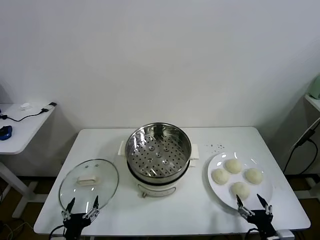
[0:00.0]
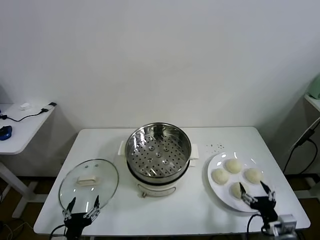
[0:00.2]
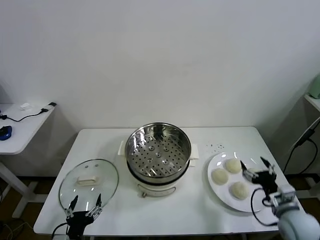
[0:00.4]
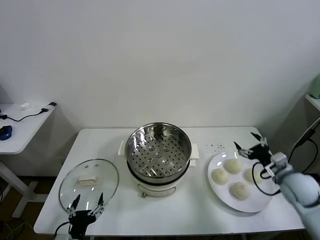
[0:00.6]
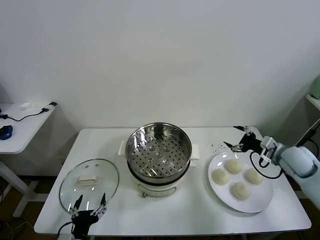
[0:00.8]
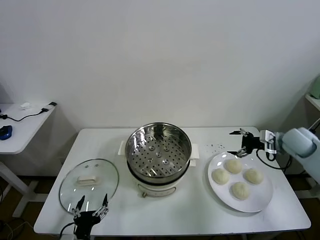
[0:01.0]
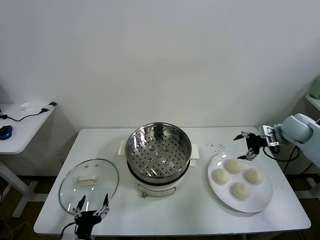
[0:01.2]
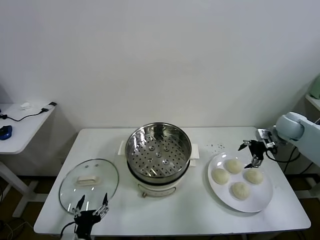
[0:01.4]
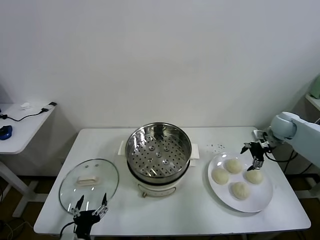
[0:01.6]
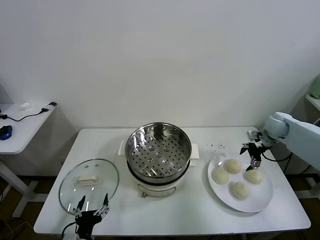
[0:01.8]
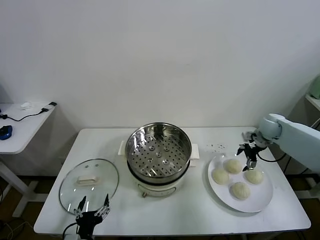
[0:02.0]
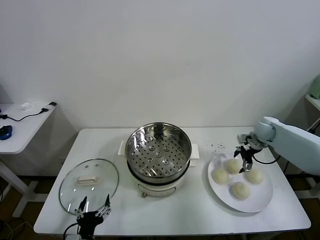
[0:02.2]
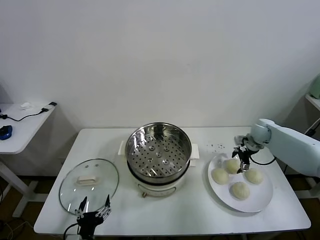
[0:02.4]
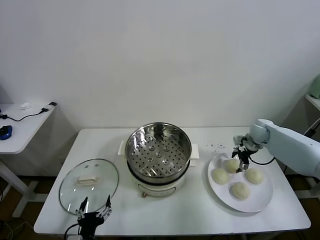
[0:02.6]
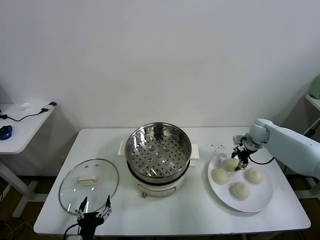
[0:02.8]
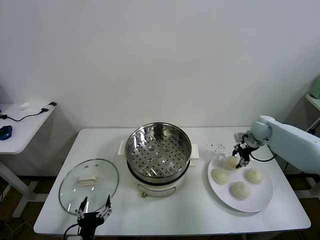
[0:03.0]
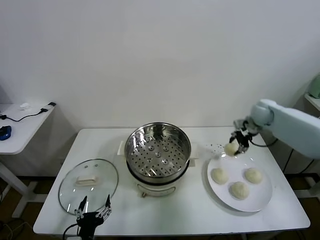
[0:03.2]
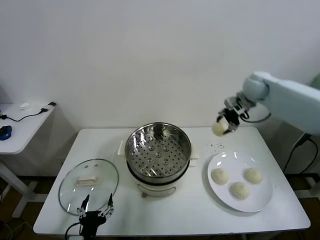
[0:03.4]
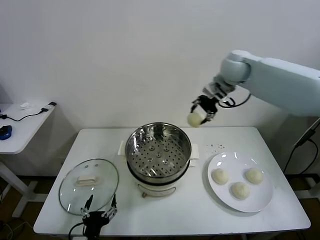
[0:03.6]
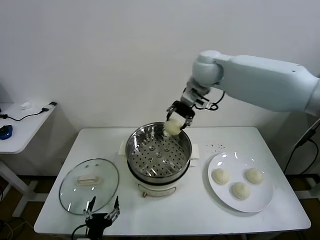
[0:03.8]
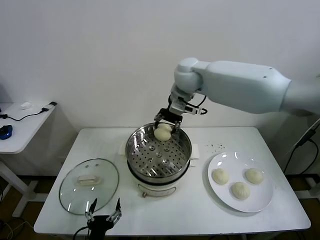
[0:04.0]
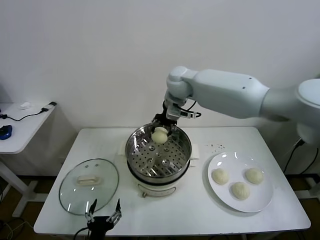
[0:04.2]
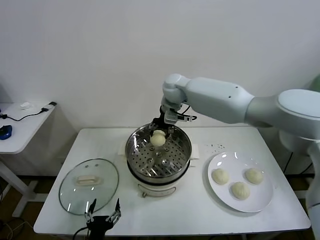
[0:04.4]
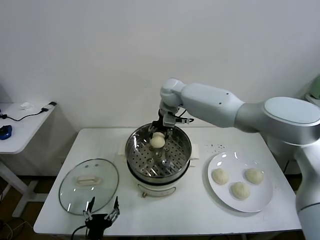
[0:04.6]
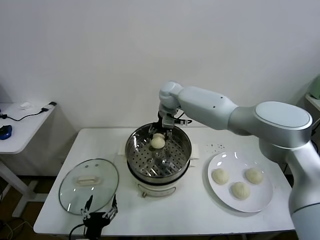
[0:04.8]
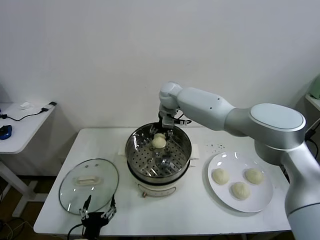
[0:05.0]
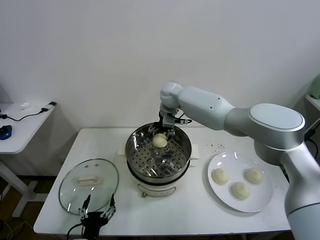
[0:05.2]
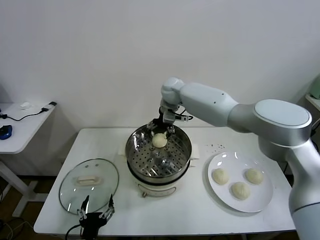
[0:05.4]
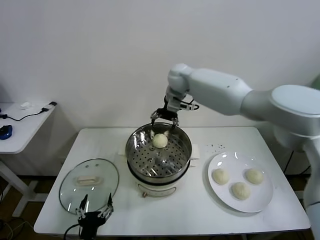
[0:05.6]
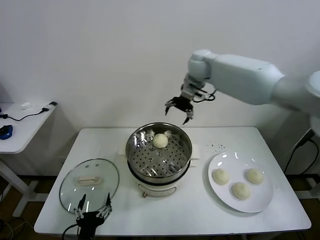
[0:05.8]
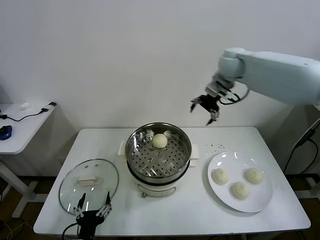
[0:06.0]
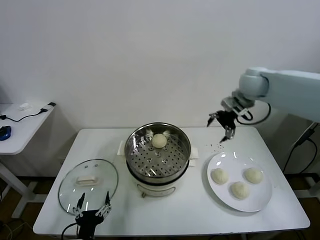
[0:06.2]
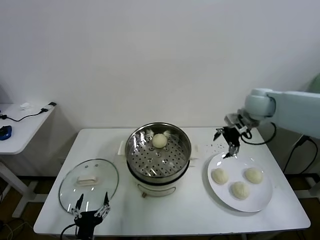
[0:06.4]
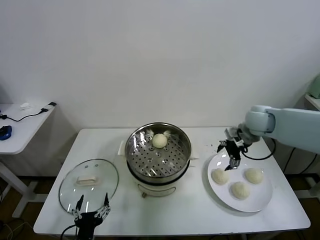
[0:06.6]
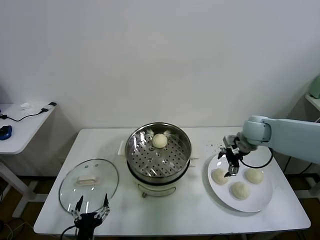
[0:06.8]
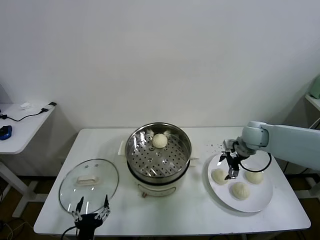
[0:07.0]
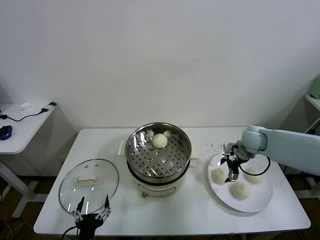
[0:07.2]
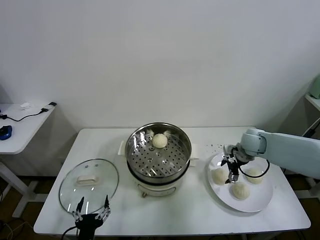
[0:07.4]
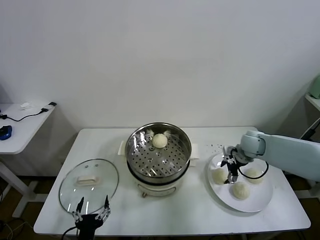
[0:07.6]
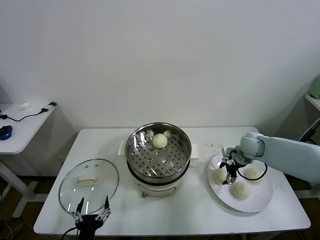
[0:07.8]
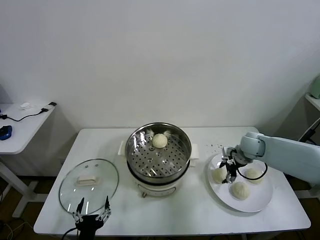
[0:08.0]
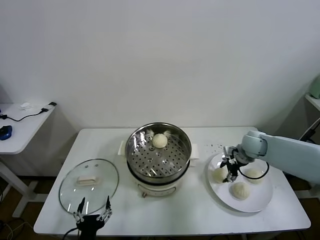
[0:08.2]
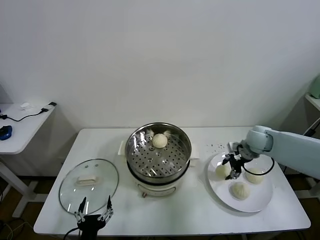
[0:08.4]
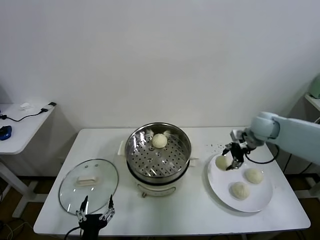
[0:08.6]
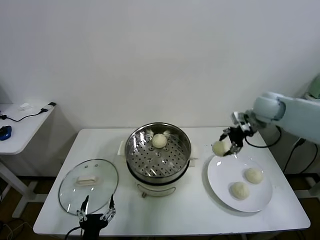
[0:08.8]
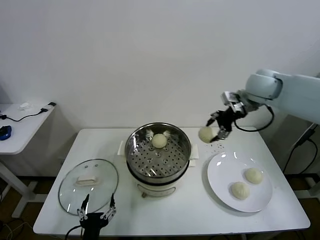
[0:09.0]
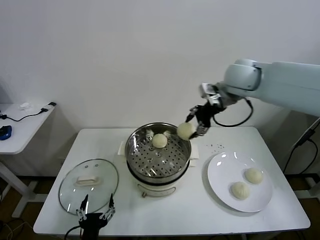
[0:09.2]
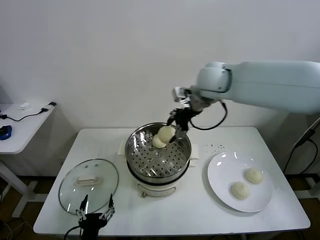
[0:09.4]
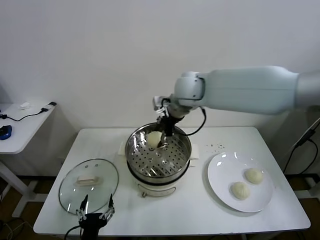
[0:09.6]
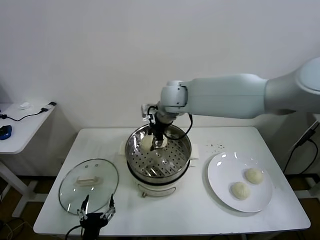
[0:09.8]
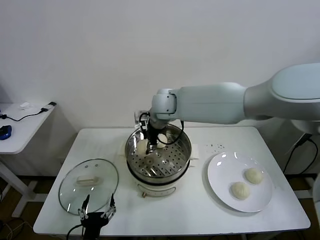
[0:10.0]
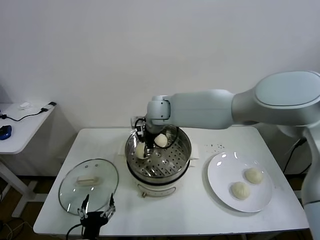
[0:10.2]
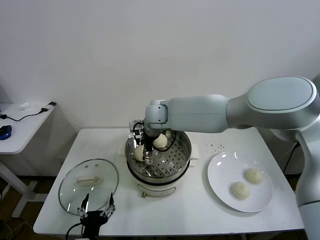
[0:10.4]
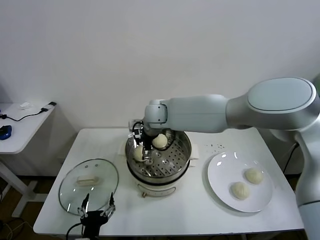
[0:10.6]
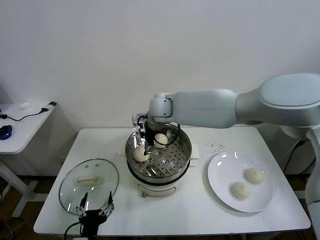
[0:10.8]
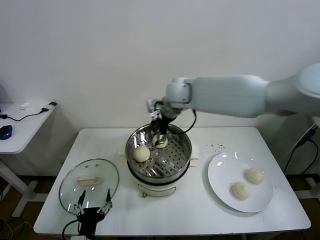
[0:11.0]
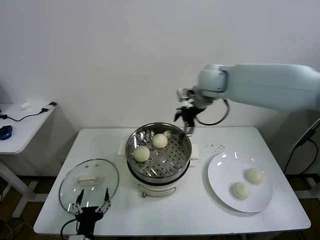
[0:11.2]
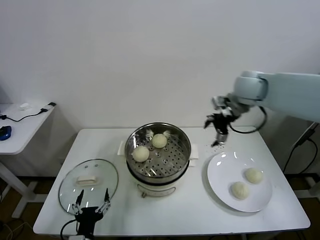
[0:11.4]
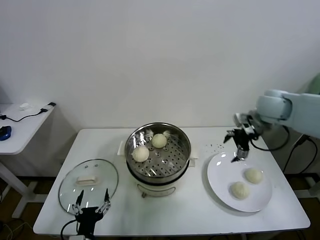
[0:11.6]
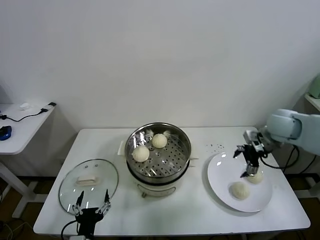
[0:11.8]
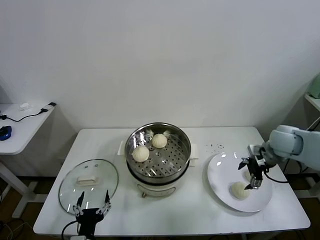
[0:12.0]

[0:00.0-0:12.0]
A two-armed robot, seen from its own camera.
Task of the whole recording: take steamed baozi put them in steamer.
Step, 0.0 to 2.6 s: Grasp the baozi in the plate with right gripper.
Step, 2.8 to 5.2 s: Place the baozi on the steamer with right gripper.
Step, 5.6 to 7.8 s: Grasp the baozi in the plate with right gripper.
Step, 8.0 to 10.6 s: Place the baozi on the steamer with right gripper.
1.6 to 3.0 s: The right gripper ends up roughly 5 cm from where it was, and closes.
3.0 to 4.4 s: The right gripper shifts some 35 cm to the left.
4.4 to 6.0 s: The right gripper goes roughly 20 cm to the right, and opens up.
6.0 to 7.6 s: The right gripper shifts some 25 cm downward.
7.6 to 9.0 s: The right gripper travels upward by about 25 cm, and closes.
9.0 to 10.4 s: The right gripper goes some 30 cm to the left and downward.
10.4 to 12.0 s: The right gripper moves to the right, about 40 cm, and opens up.

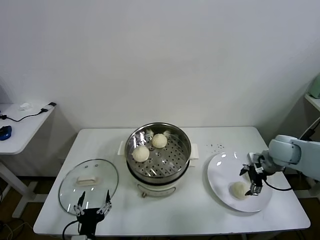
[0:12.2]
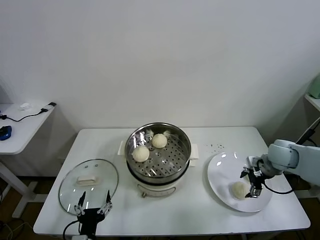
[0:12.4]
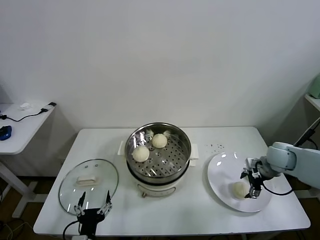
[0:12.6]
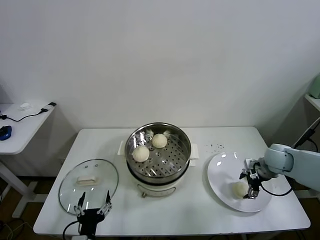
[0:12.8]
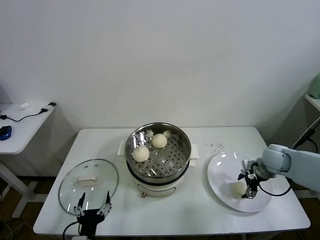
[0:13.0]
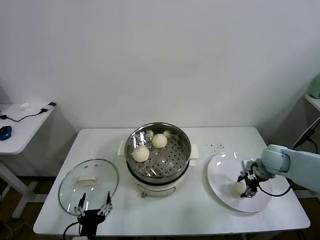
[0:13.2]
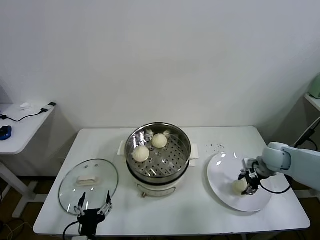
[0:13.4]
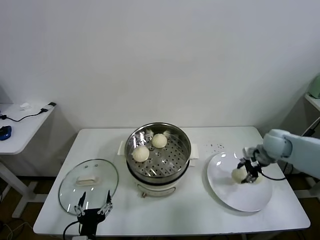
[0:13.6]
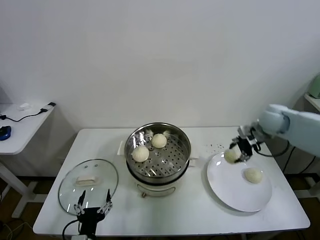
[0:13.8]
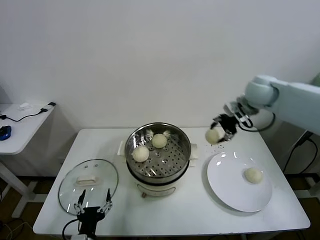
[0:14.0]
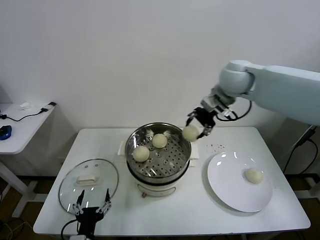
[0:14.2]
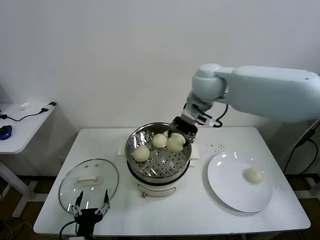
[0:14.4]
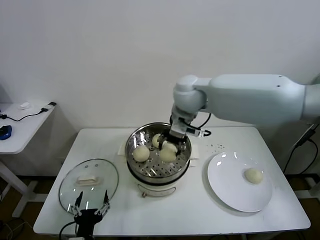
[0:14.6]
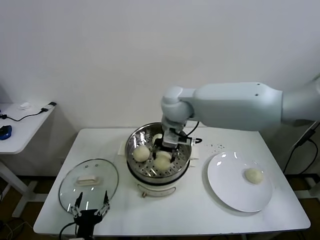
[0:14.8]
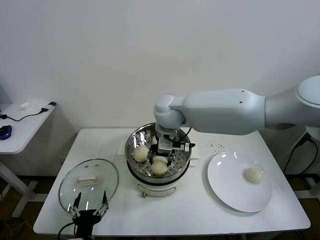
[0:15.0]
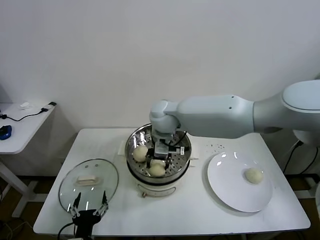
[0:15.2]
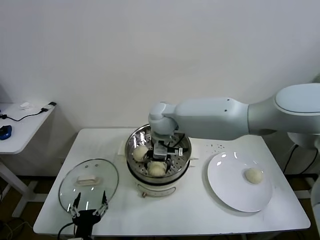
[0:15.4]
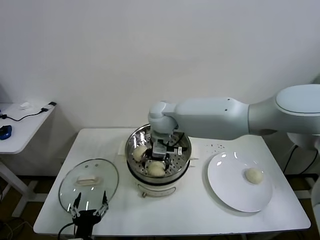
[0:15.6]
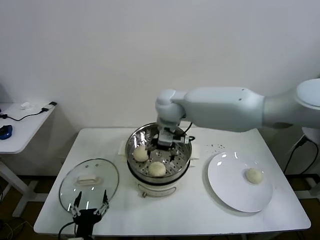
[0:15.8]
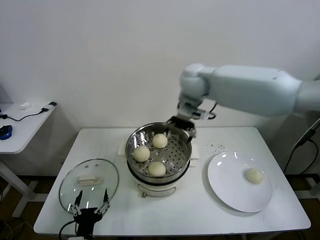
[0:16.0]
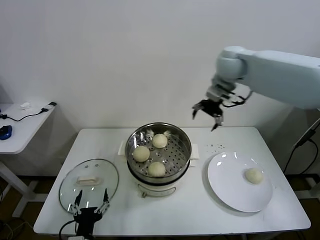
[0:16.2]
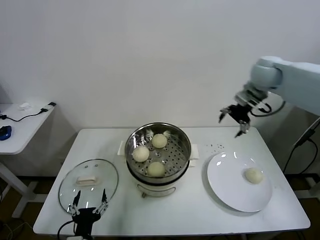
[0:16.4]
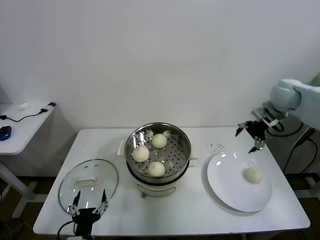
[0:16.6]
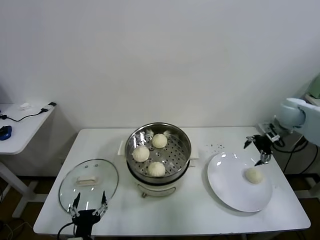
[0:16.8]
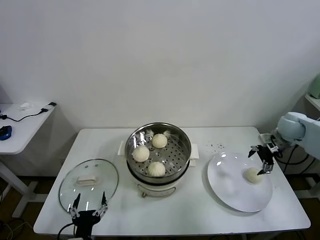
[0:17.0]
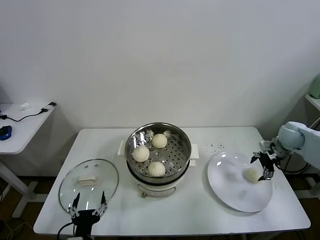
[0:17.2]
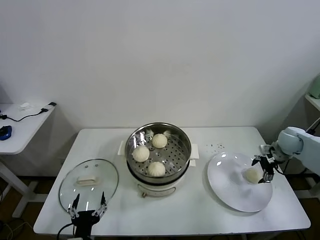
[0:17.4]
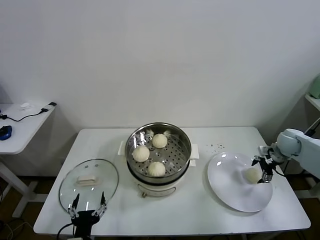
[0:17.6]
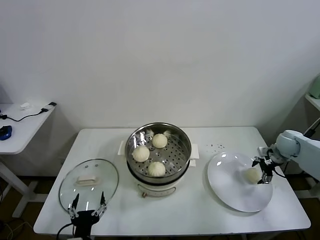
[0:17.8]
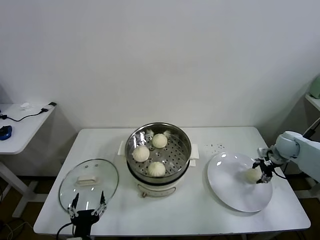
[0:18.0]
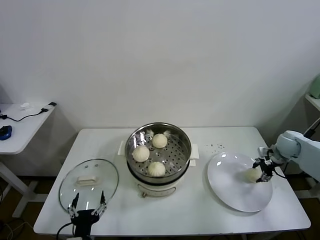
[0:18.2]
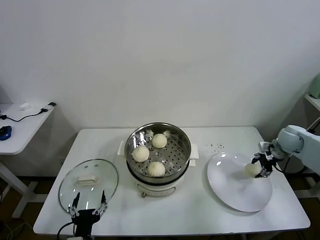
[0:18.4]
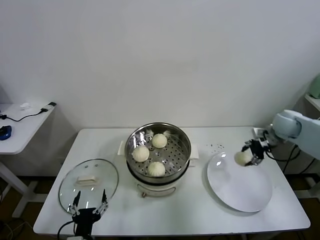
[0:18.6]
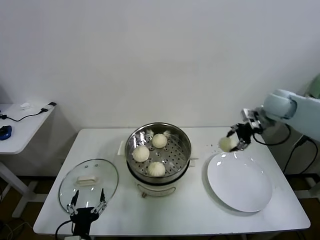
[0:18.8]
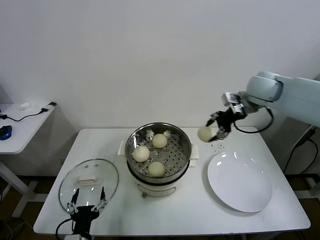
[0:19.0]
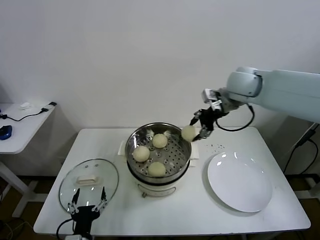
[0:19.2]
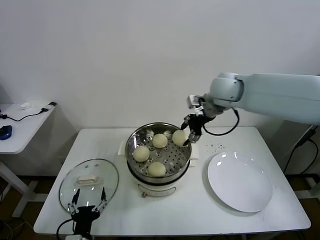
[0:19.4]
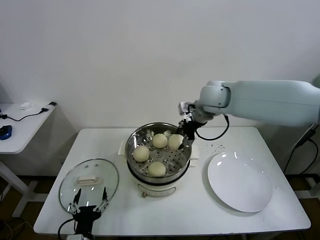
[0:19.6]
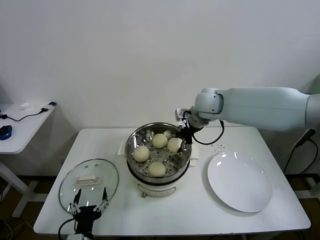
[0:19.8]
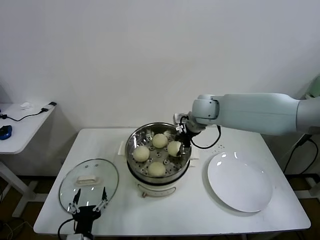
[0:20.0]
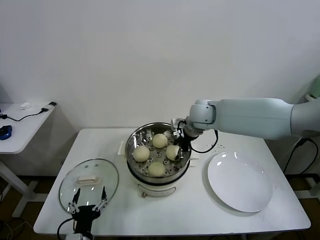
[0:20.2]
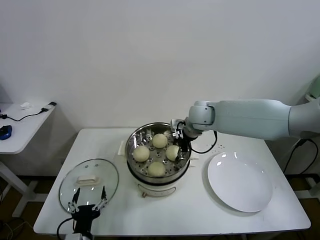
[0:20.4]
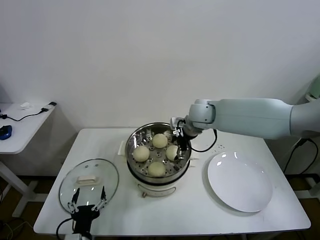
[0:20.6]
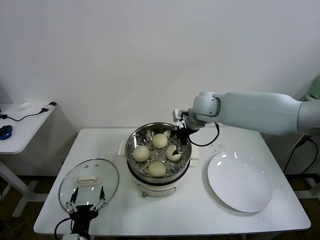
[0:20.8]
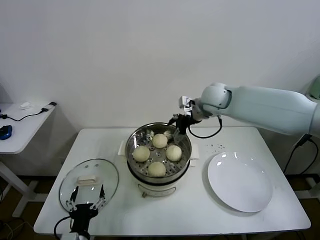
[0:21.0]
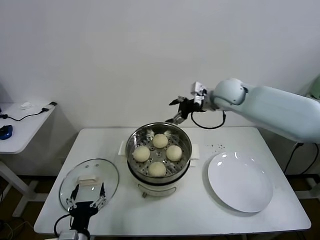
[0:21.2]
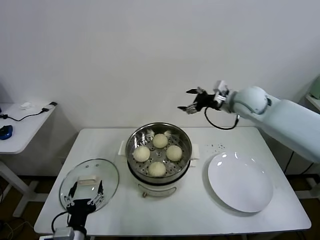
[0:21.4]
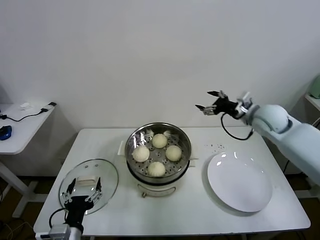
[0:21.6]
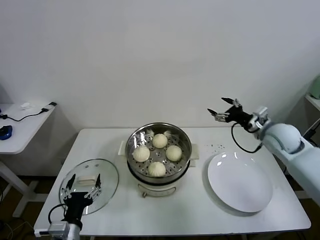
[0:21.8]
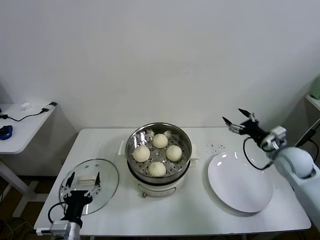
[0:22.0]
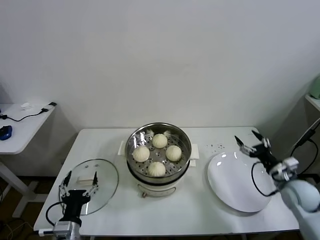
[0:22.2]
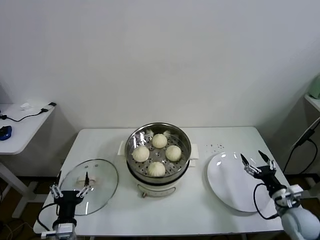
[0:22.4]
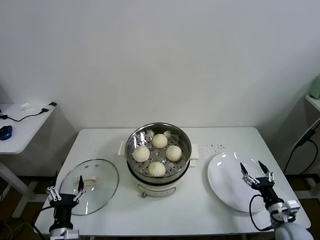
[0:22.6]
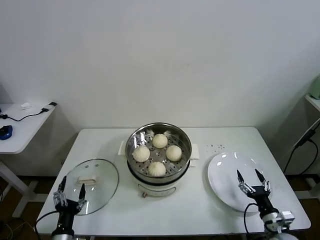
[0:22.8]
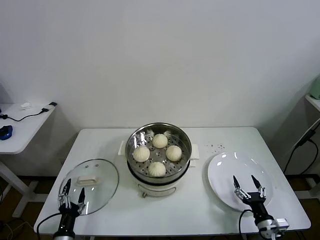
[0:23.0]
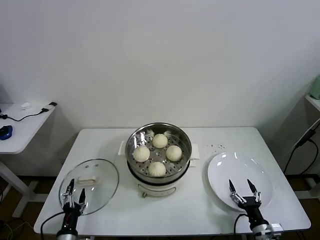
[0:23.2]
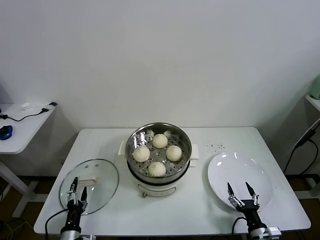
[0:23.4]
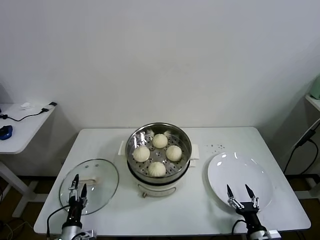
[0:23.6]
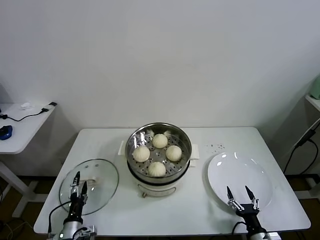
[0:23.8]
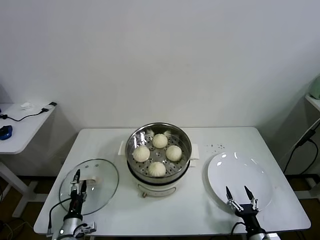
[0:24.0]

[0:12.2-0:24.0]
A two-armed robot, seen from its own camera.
Task of the whole recording: take steamed baozi put them in steamer.
Step, 13.4 to 15.6 s: Place the baozi on the steamer with right gripper.
Step, 15.8 to 18.0 s: Grasp the baozi in the plate with right gripper.
Step, 18.2 to 20.6 s: Place the baozi on the steamer with right gripper.
12.2 to 13.6 s: The right gripper closes.
13.6 to 15.2 s: The right gripper is displaced to the left by some 40 cm.
15.2 to 16.6 s: The right gripper shifts roughly 40 cm to the right, and opens its fingers.
16.6 to 18.2 s: The right gripper travels downward and to the right by about 20 cm, and closes.
18.2 to 19.6 s: The right gripper heads to the left and upward, covering about 35 cm.
19.6 to 21.0 s: The right gripper goes downward and returns, some 10 cm each way, and opens up.
21.0 to 22.6 s: The right gripper is displaced downward, backward and to the right by some 50 cm. The left gripper is displaced to the left by some 5 cm.
22.6 to 24.0 s: The right gripper is displaced to the left, backward and downward by approximately 15 cm; the left gripper heads downward, covering some 10 cm.
